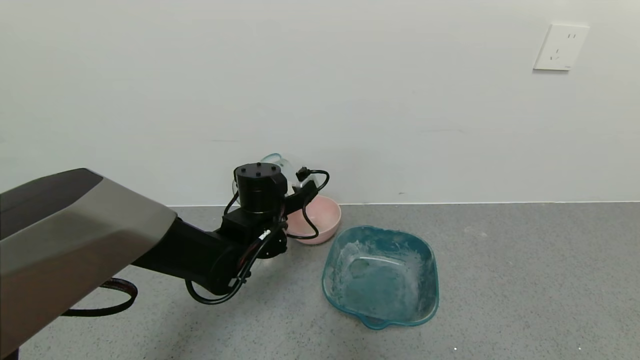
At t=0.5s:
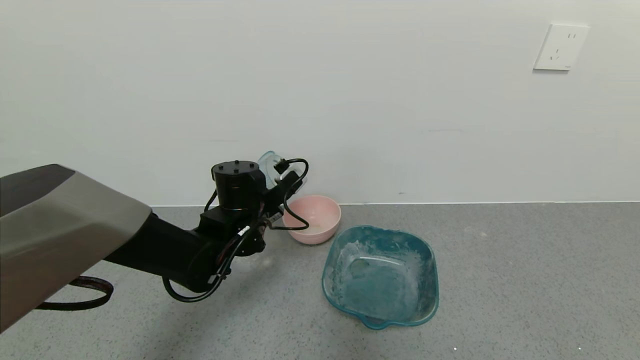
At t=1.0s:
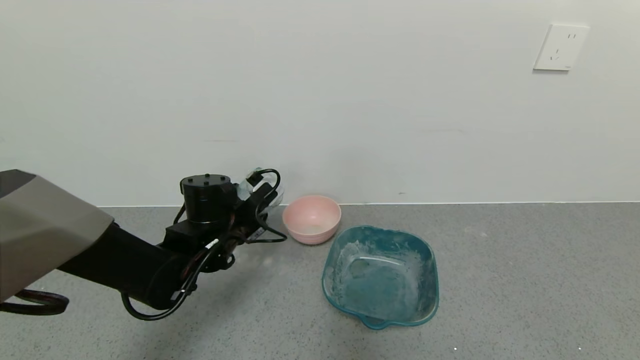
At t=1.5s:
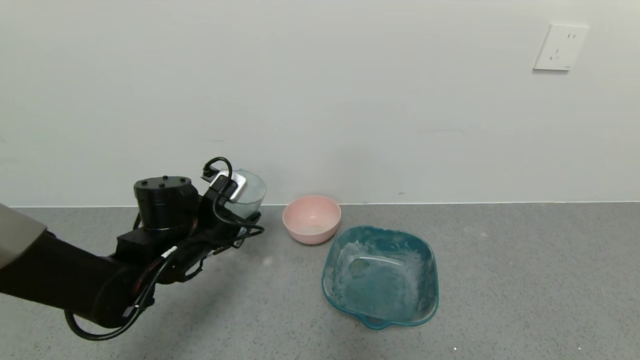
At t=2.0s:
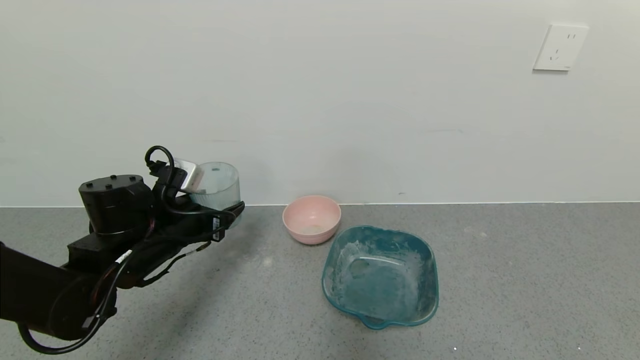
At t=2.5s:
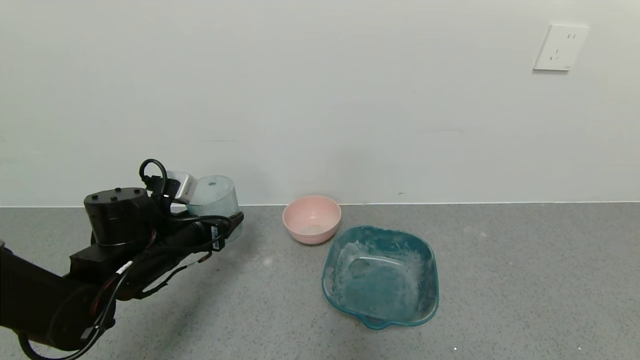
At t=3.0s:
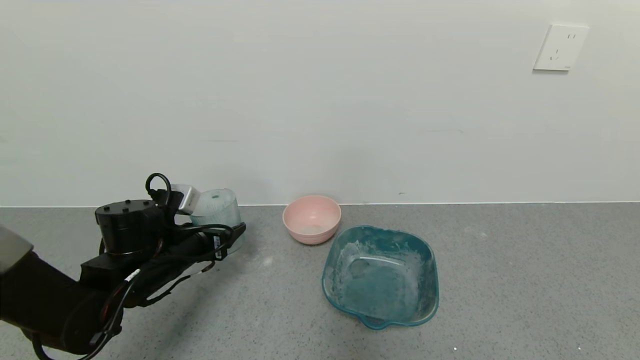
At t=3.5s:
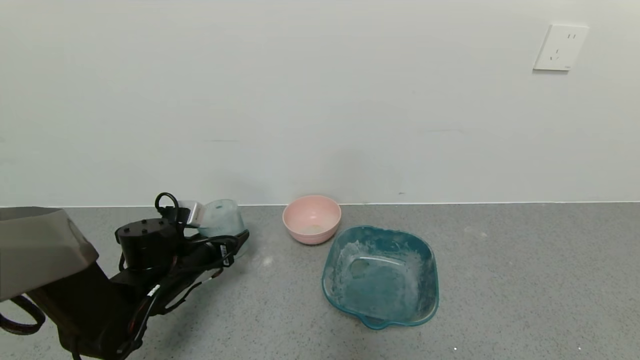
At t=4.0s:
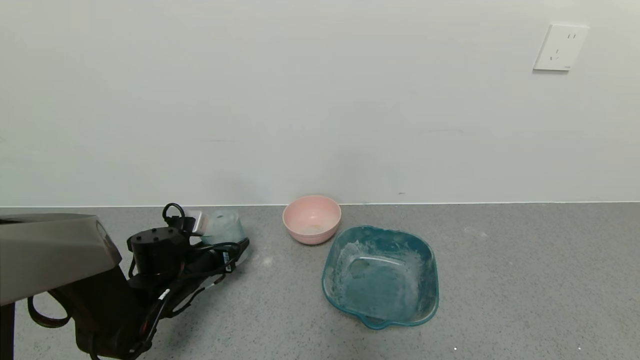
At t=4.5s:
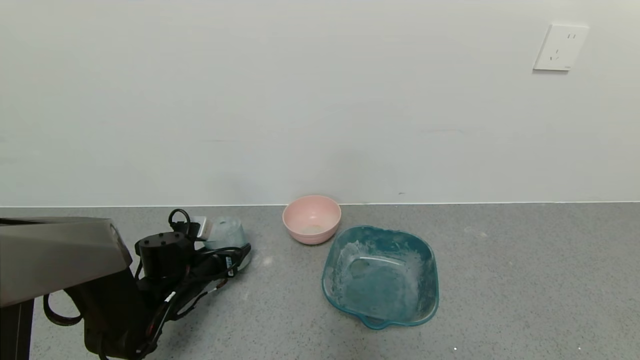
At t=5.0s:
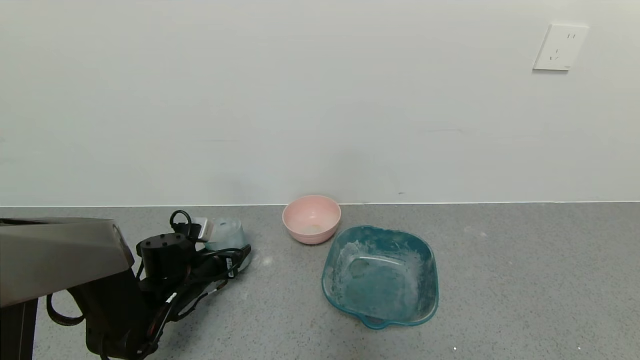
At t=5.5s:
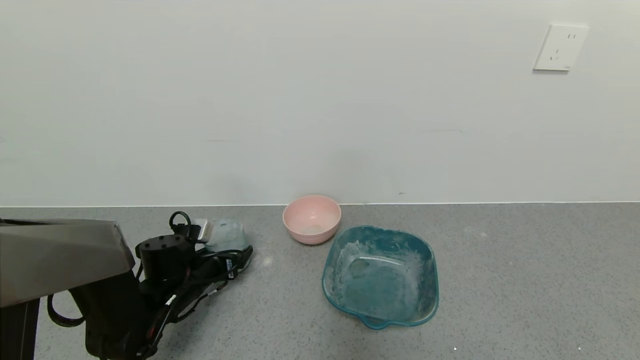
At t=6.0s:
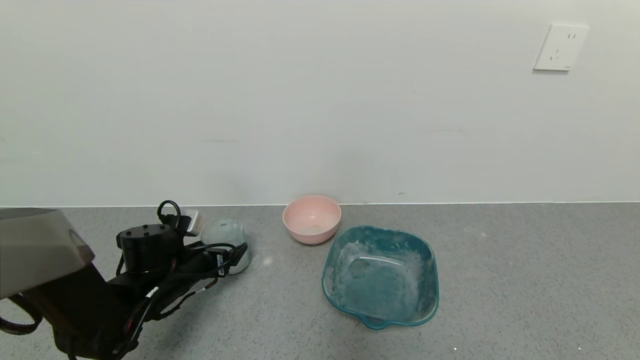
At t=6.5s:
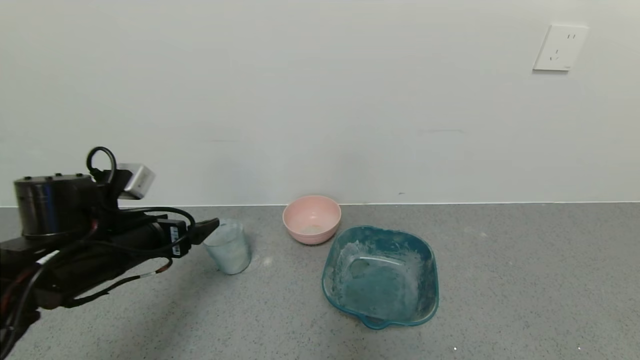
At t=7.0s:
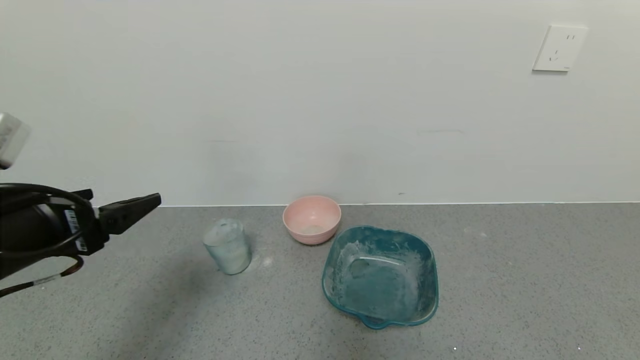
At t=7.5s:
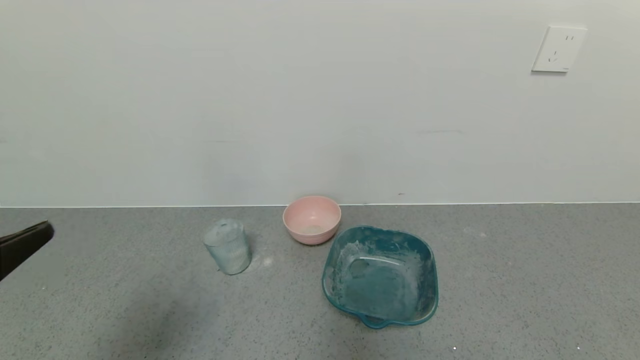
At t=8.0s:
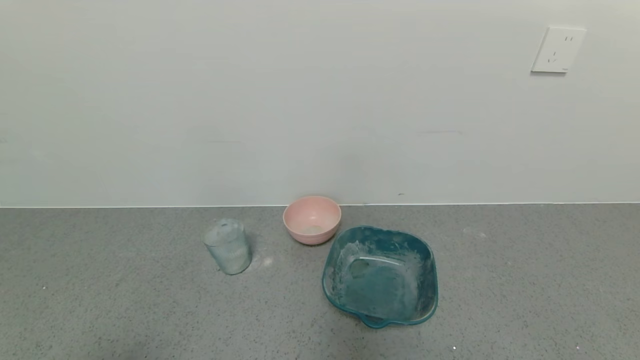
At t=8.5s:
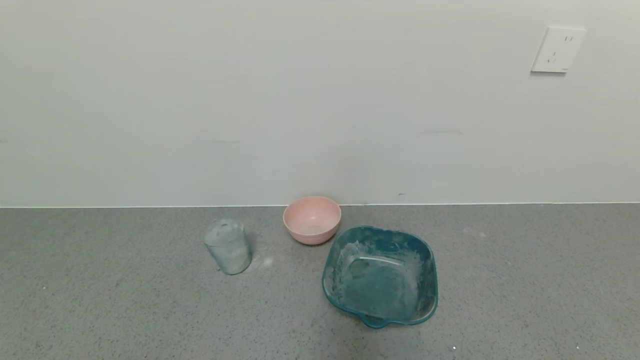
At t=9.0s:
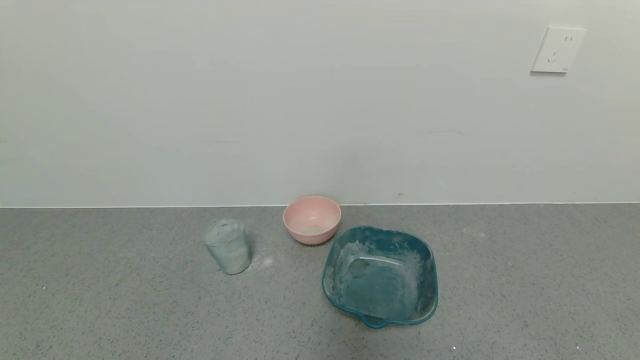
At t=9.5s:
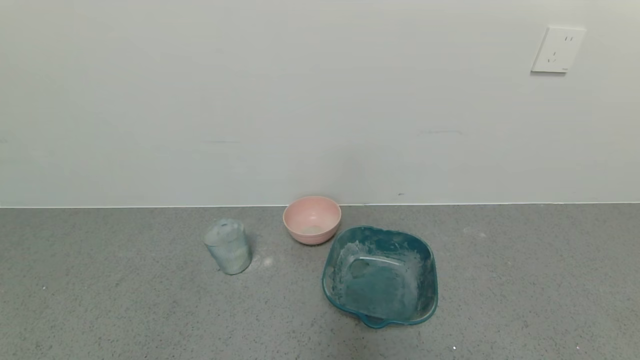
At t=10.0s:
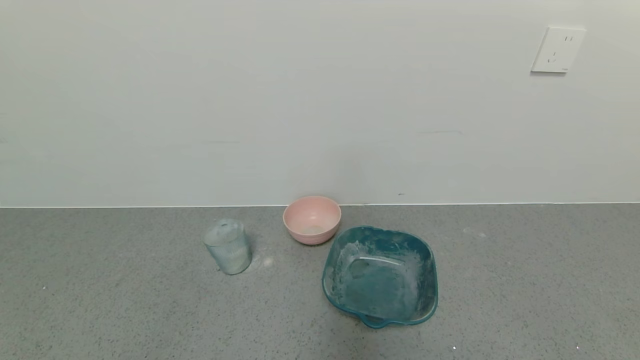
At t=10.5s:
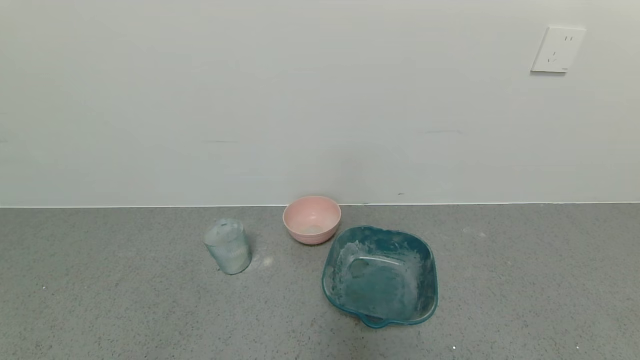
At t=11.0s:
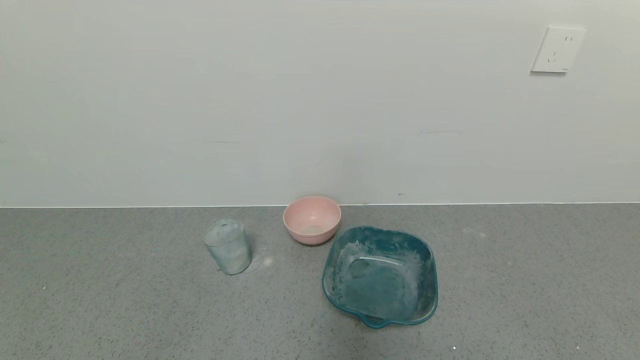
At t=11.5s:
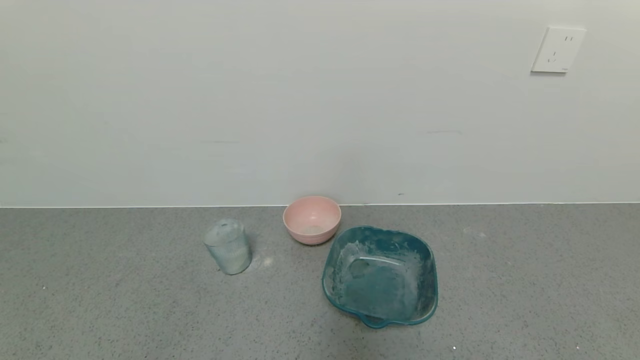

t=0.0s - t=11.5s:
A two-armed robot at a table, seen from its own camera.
Task of the whole recording: use a gripper to pick up the cup and pour the powder into a bowl or tray.
Step, t=0.0s - t=6.0s: Place the glass cup down with the left gripper.
t=0.0s - t=2.0s: The left gripper travels to the left and backward by about 15 cm.
t=2.0s - t=4.0s: The left gripper goes some 10 cm downward.
t=4.0s - t=6.0s: The left gripper opens up.
t=6.0s - t=7.5s: The left gripper travels backward and upward by roughly 35 cm.
t=7.5s - t=9.5s: The left gripper moves downward and backward, approximately 15 cm.

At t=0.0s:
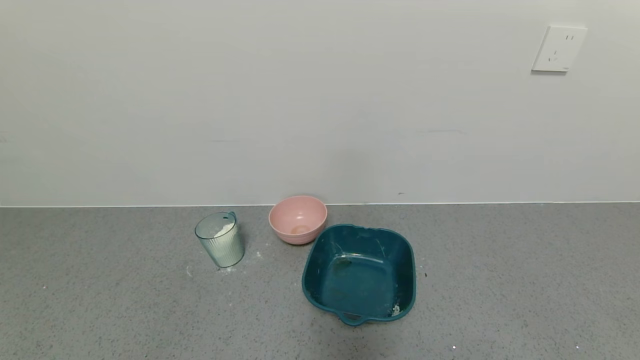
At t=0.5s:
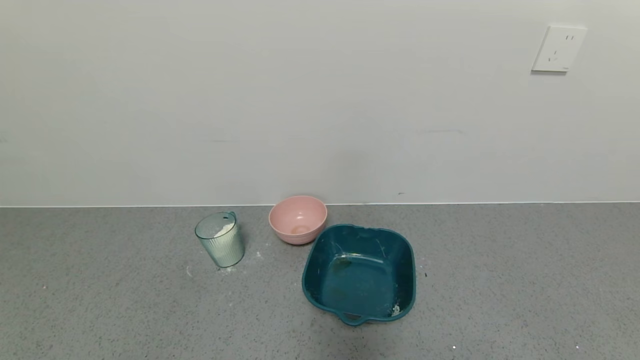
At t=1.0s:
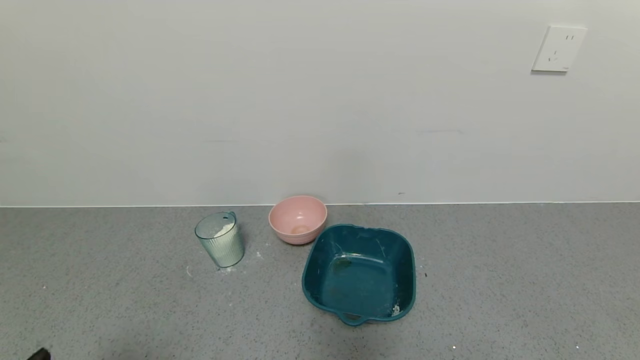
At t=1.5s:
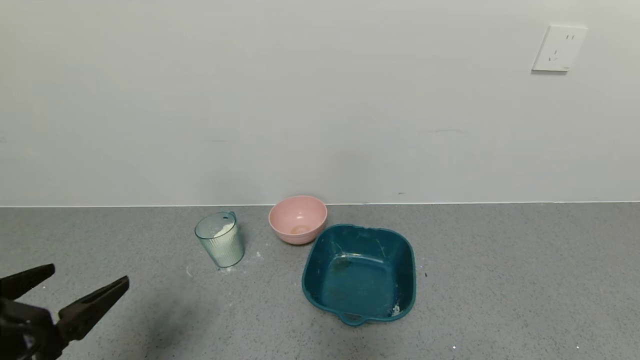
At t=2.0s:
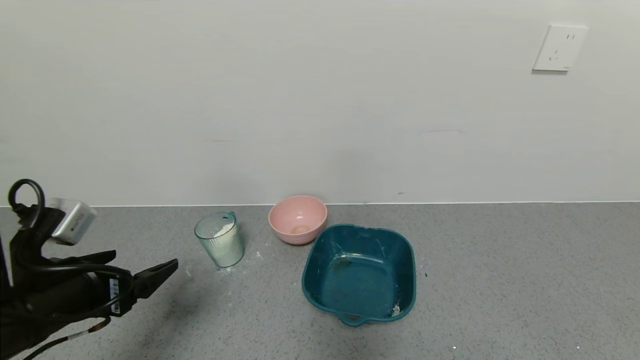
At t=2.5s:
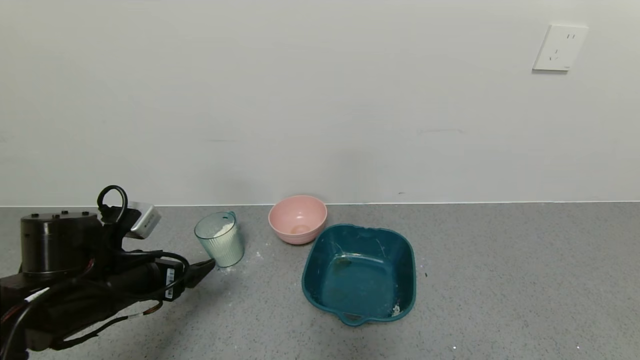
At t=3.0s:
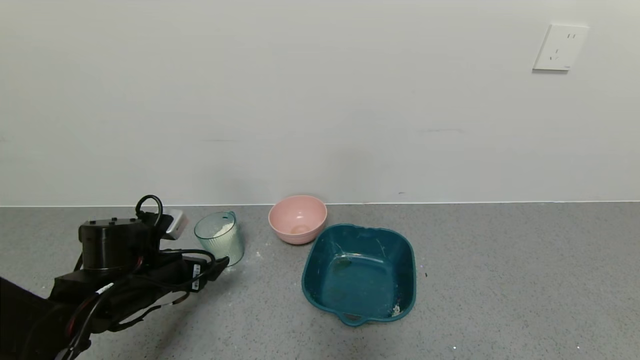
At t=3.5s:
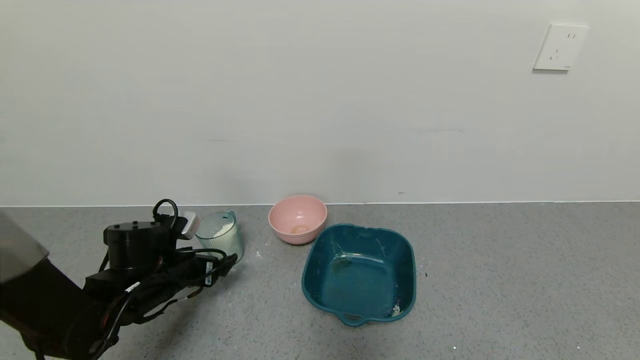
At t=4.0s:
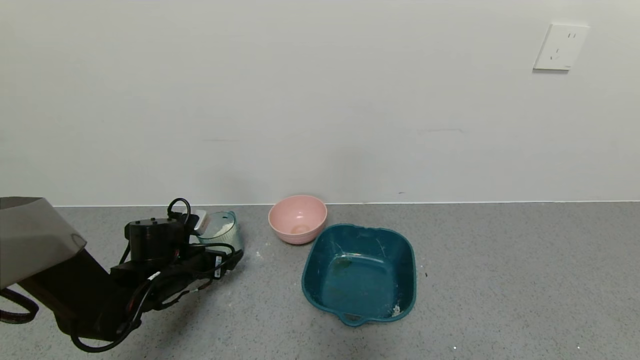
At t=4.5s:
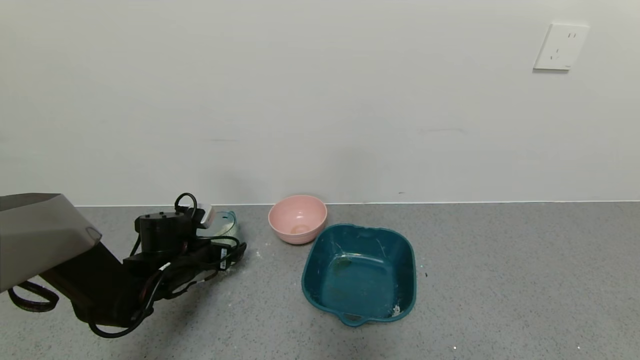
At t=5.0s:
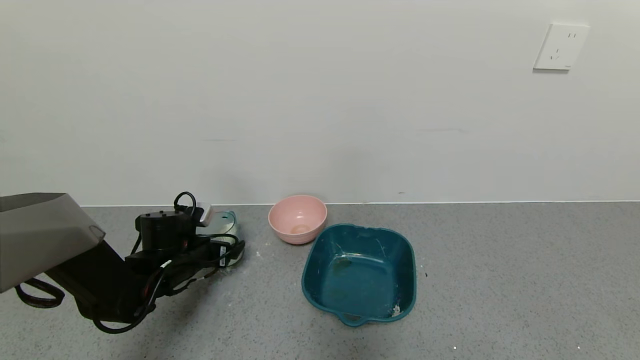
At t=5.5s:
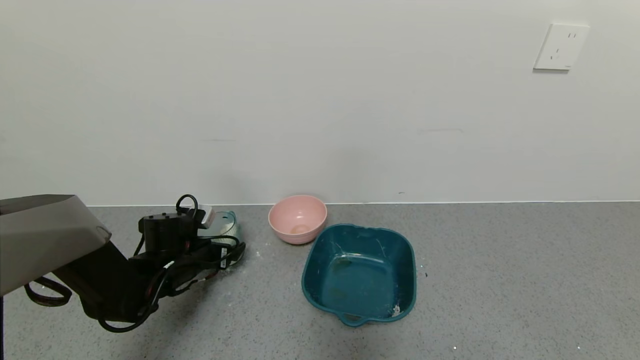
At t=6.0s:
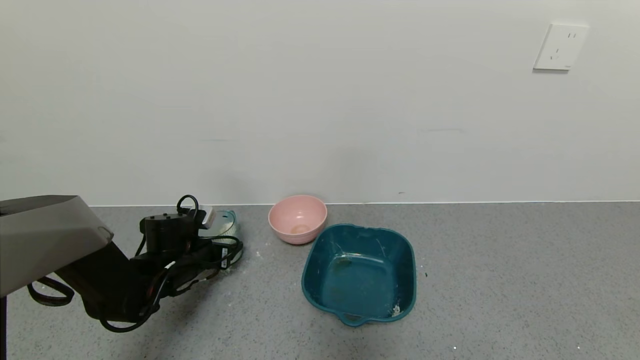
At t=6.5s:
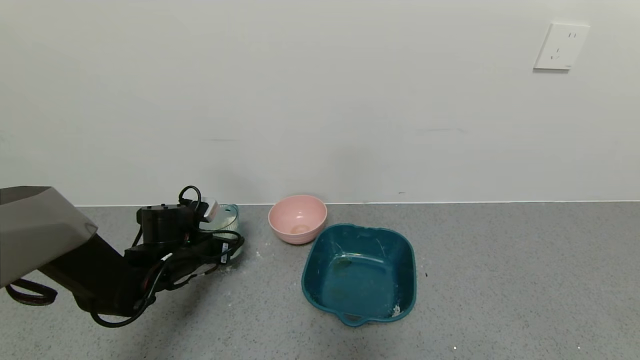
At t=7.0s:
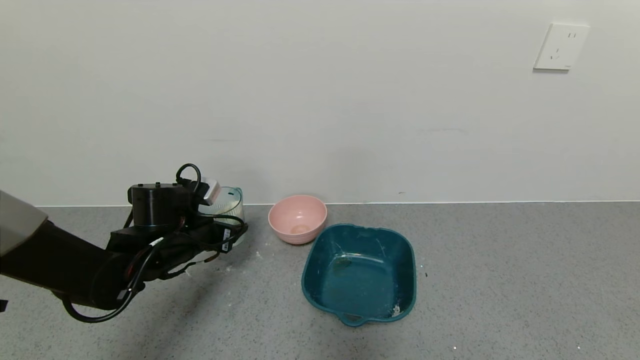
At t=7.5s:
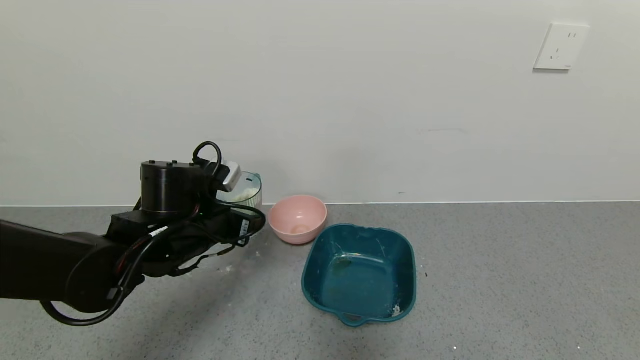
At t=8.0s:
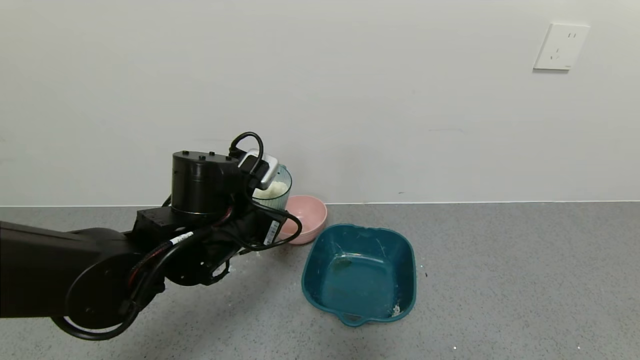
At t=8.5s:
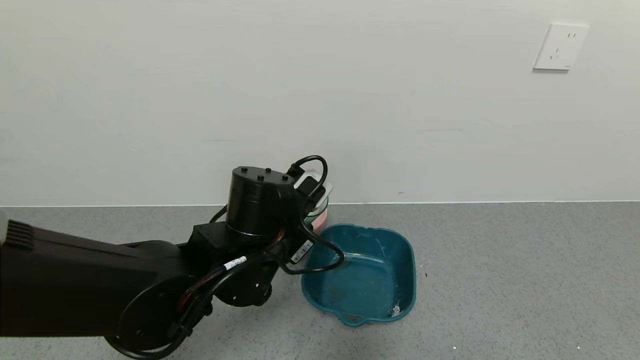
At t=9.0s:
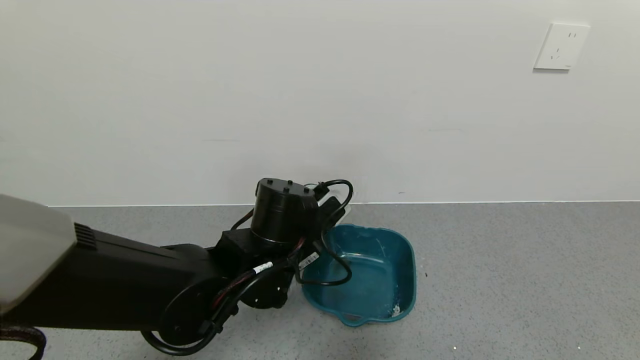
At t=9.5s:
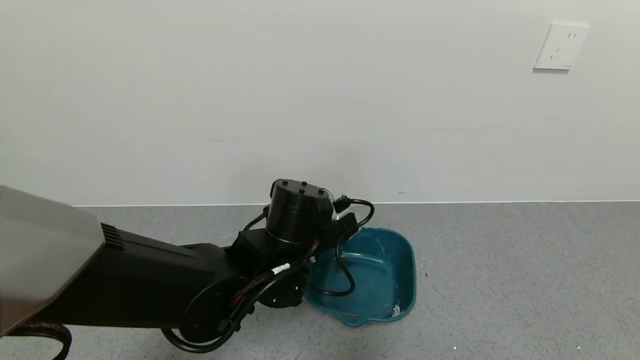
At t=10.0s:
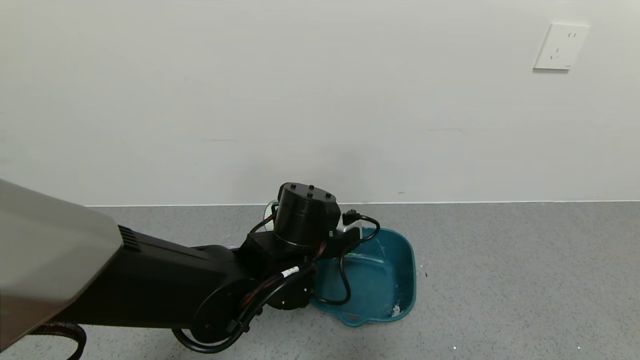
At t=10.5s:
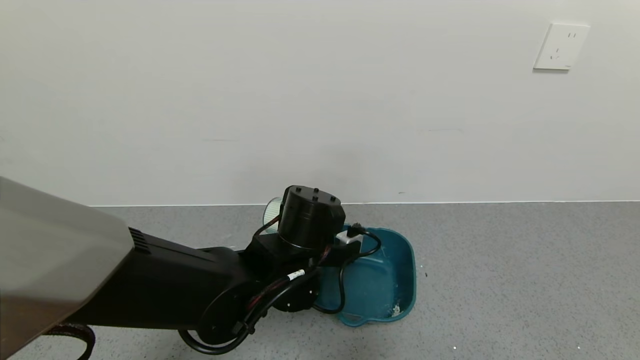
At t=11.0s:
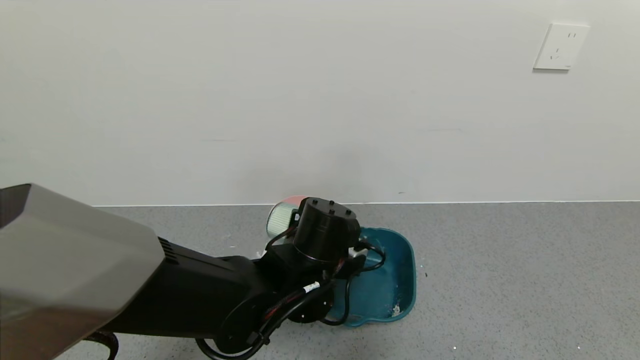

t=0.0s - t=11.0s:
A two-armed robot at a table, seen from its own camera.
Task of the whole recording: use a gripper to pick up the cup and pour the powder into a bowl or tray.
Step, t=0.0s - t=6.0s: Pick up blue cup filled with milk powder with left gripper.
t=0.0s - t=2.0s: The left gripper goes approximately 20 cm forward and upward.
t=2.0s - t=3.5s: The left gripper is displaced forward and downward by approximately 15 cm.
t=3.5s - t=5.5s: The left gripper moves forward, roughly 5 cm.
t=5.5s - t=7.5s: The left gripper moves upward, to the right and backward, approximately 15 cm, and closes up.
t=7.5s - t=9.0s: The left gripper travels to the right by roughly 10 cm.
